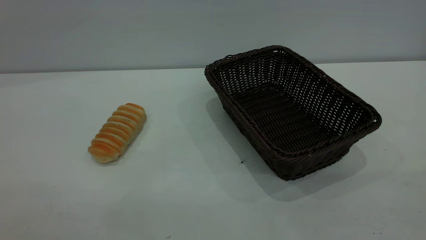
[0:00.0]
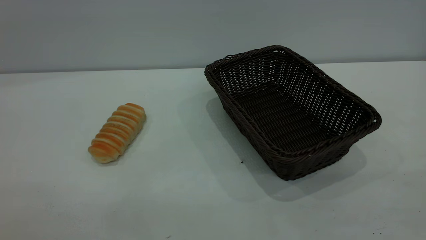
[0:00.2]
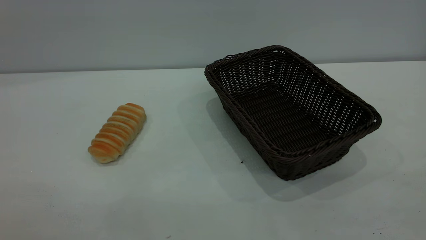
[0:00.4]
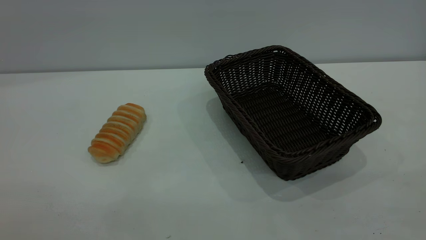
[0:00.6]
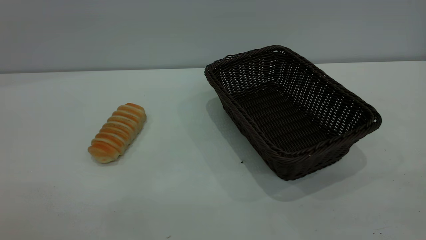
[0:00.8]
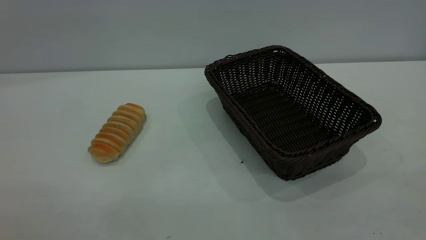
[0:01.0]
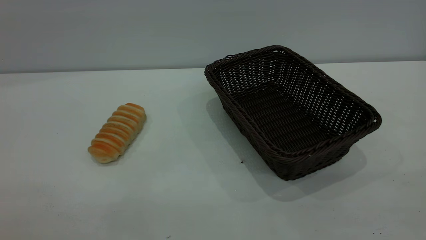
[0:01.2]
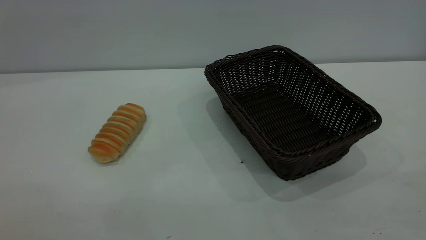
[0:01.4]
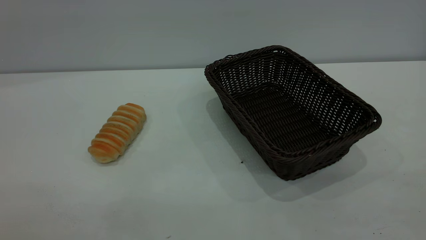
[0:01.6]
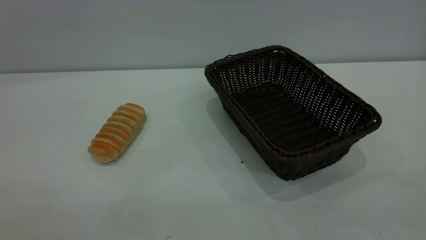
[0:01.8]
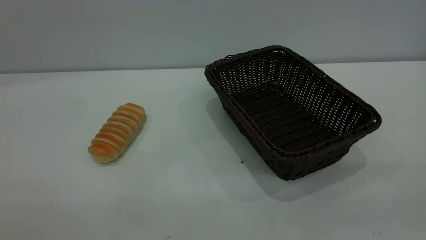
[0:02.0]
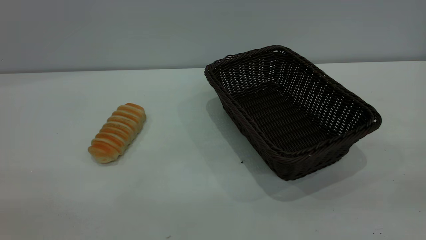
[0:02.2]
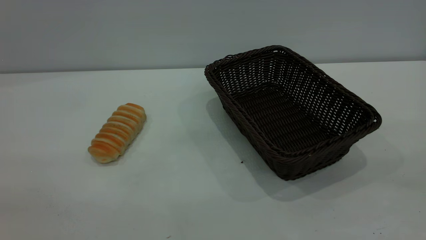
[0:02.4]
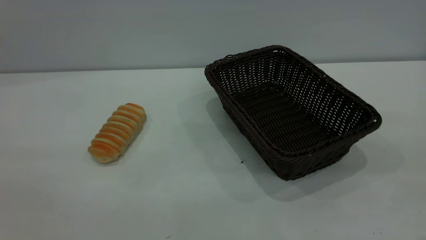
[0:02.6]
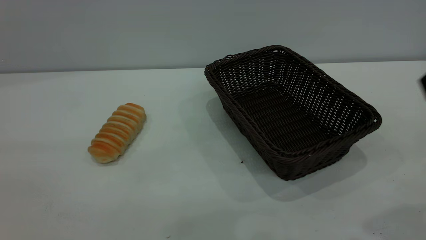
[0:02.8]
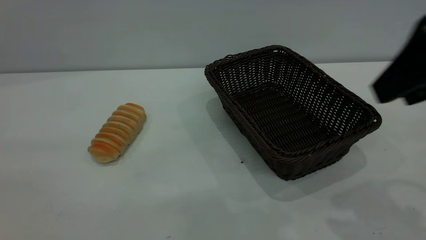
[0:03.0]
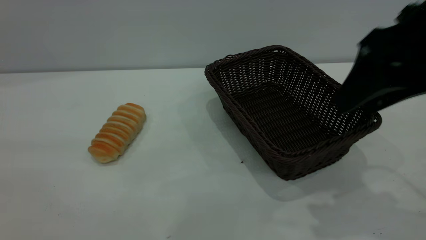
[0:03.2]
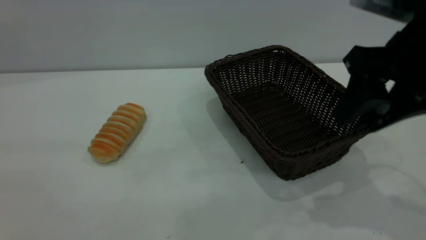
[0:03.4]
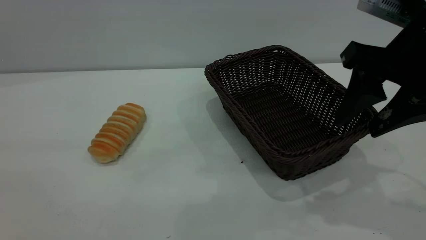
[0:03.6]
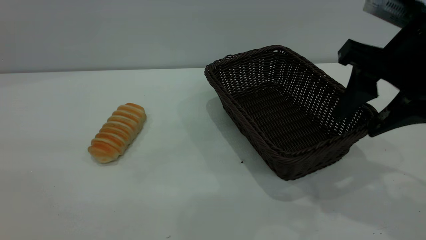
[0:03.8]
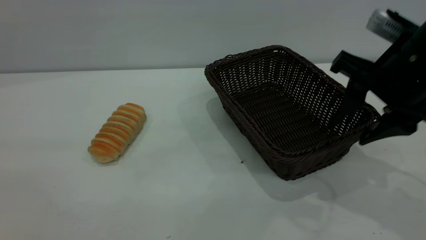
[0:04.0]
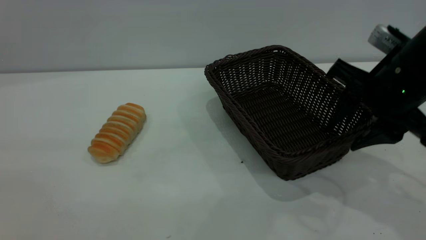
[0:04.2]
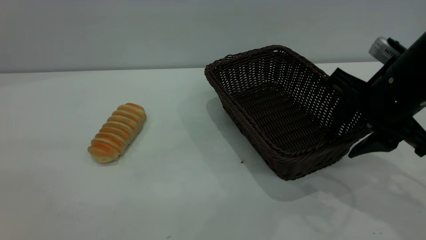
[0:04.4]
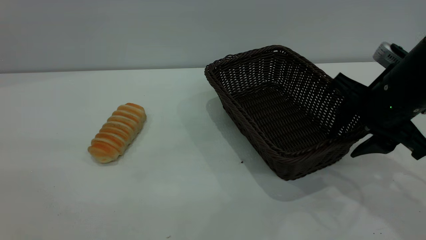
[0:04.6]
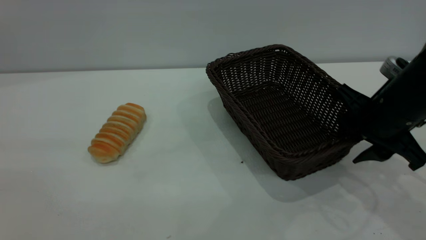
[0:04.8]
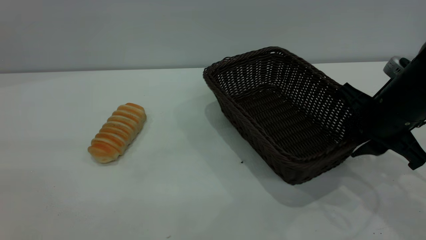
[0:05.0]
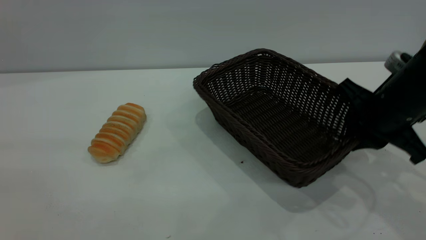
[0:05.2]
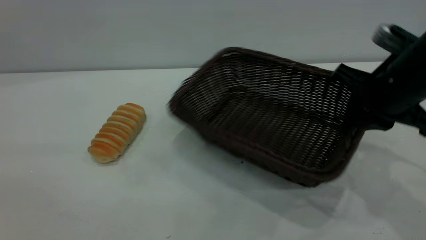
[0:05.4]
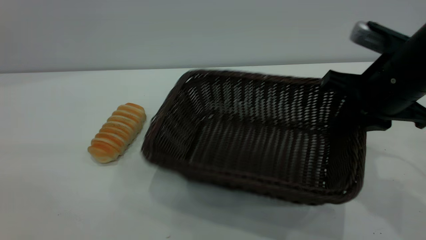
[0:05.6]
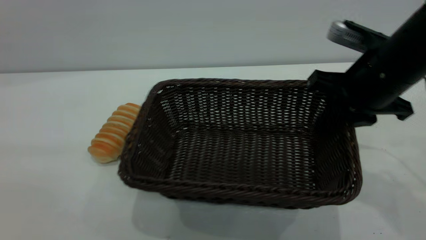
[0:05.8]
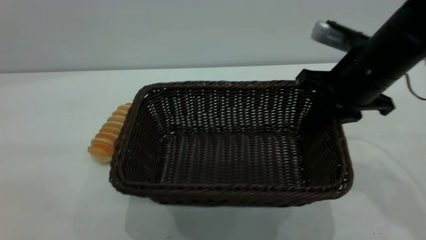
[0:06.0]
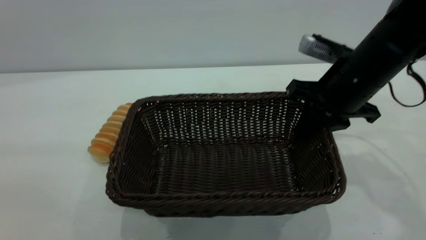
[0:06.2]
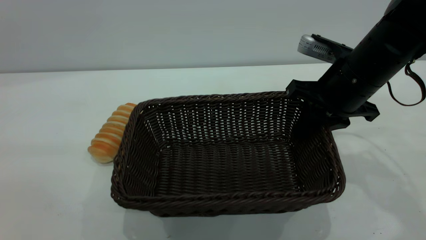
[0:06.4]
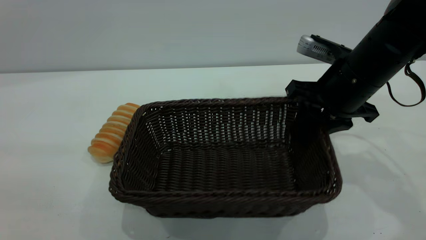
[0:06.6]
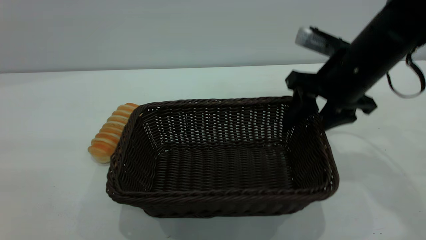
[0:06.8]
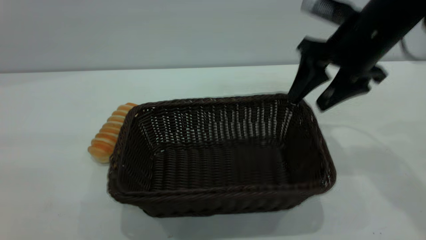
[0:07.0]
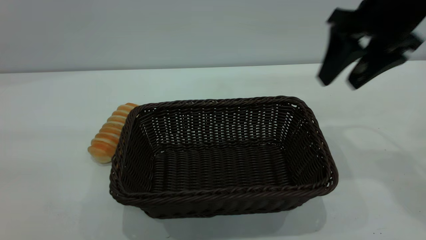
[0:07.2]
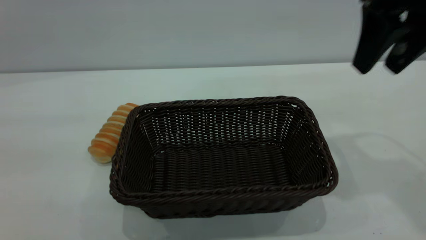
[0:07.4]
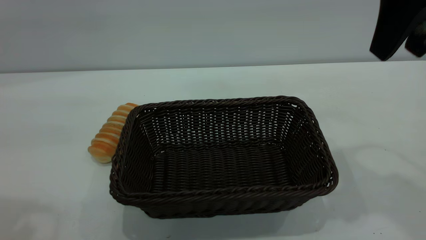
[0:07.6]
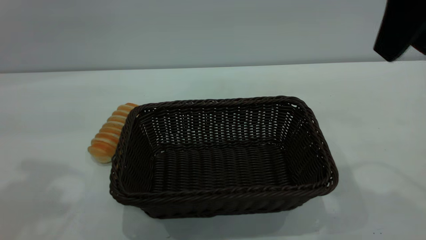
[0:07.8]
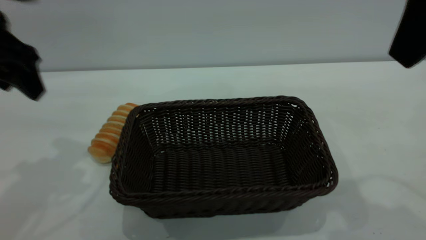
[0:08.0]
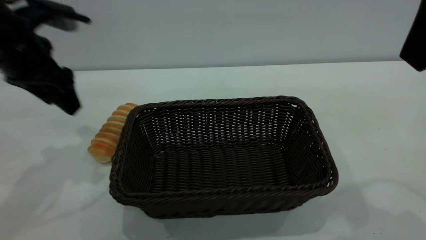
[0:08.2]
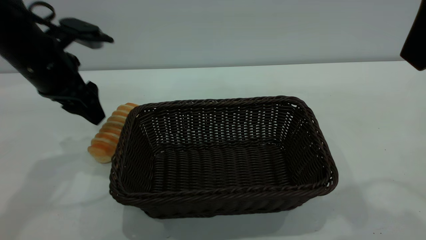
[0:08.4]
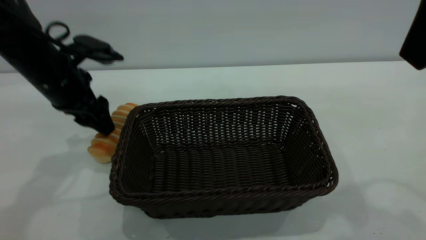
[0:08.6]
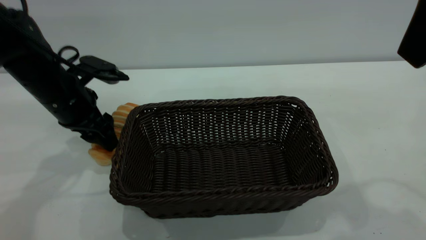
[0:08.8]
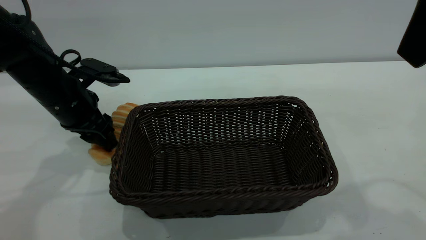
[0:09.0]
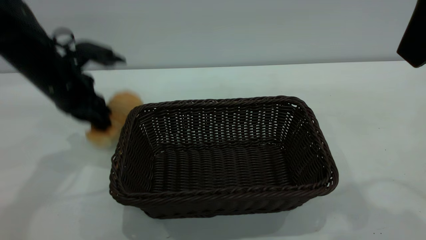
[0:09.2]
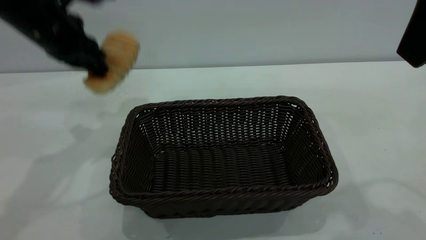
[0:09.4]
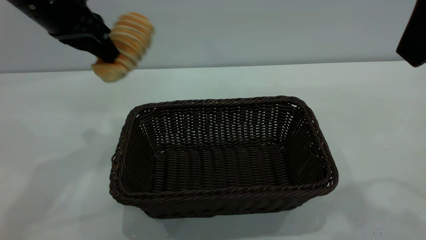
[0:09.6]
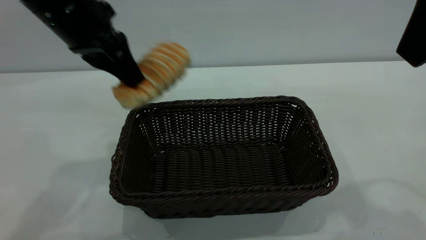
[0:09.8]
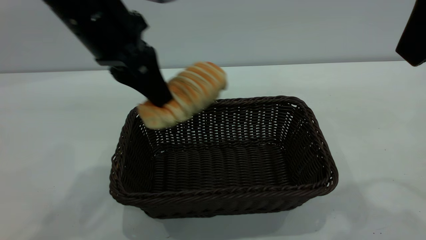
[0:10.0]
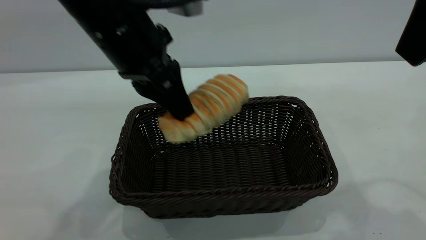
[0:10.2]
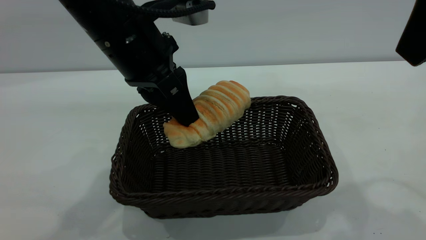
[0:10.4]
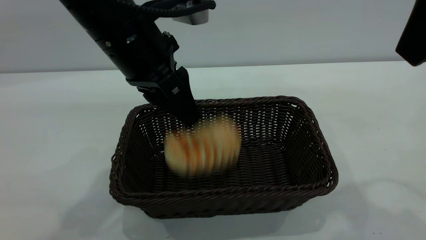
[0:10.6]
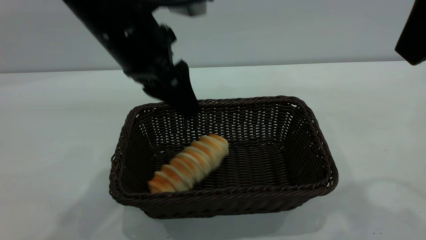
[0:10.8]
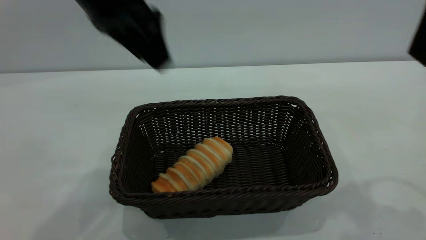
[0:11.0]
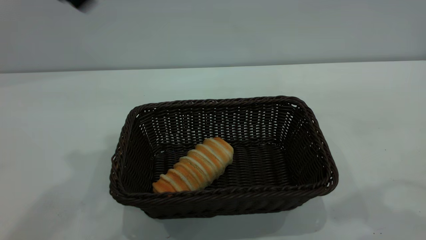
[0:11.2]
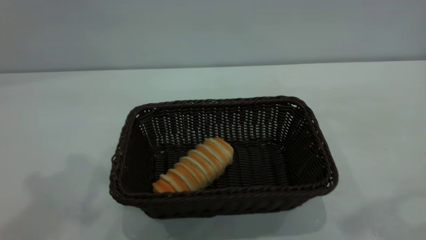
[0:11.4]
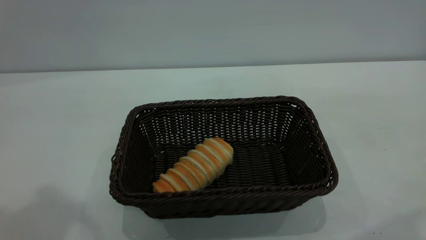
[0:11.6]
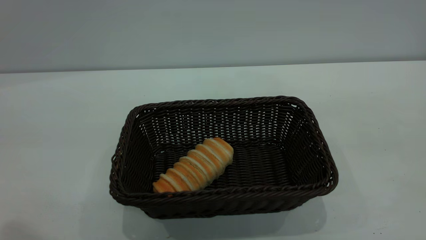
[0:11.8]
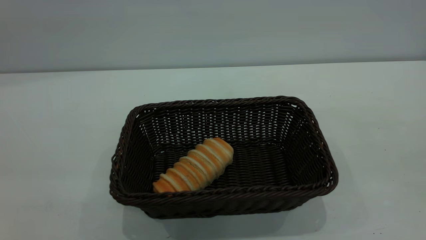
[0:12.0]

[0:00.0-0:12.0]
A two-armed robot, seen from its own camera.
Task of the whole recording: One hand grasps the black basket and places it in the middle of the table, while the other hand picks up the long bread and puts it into the black basket.
Step, 0:00.0 to 0:07.0: Move the basket to the center of view.
Step, 0:09.6 to 0:10.8: place the bread into the basket.
0:00.0 to 0:01.6: Both grippers stay about where they are.
0:01.6 to 0:03.0: The right gripper travels forward by about 25 cm.
0:03.0 to 0:04.4: The right gripper is displaced downward and forward by approximately 15 cm.
0:04.4 to 0:06.0: The right gripper changes place by some 5 cm, and closes up.
0:06.0 to 0:07.6: The left gripper moves forward, about 15 cm, while the right gripper shifts about 15 cm upward, and opens up.
0:07.6 to 0:09.0: The right gripper heads backward, covering roughly 5 cm, while the left gripper goes some 30 cm downward and forward, and closes up.
0:09.0 to 0:10.4: The left gripper shifts about 20 cm to the right, upward and backward, and closes up.
0:10.4 to 0:12.0: The right gripper is displaced backward and to the right by some 15 cm. The left gripper heads backward, to the left and upward, covering roughly 35 cm, and opens.
